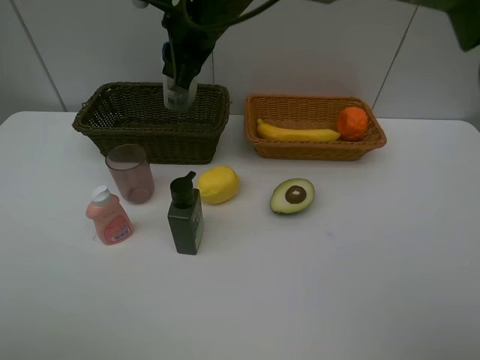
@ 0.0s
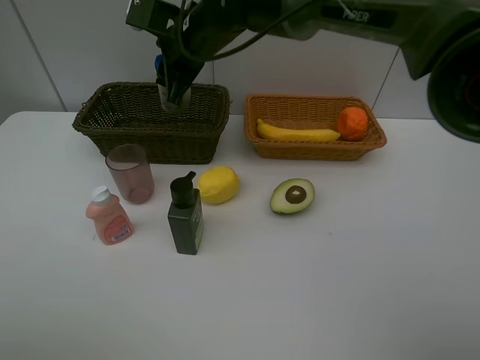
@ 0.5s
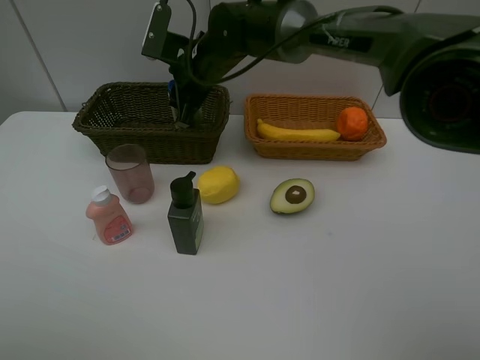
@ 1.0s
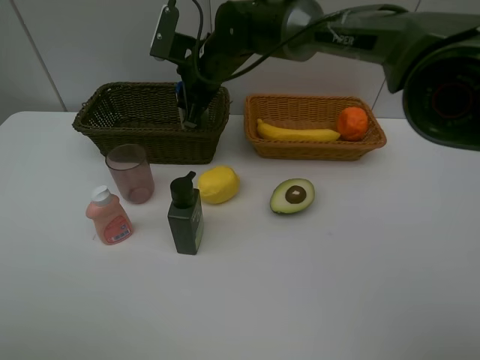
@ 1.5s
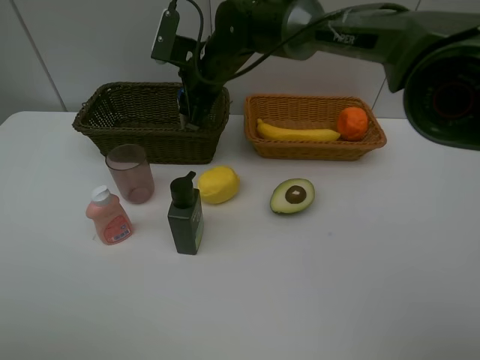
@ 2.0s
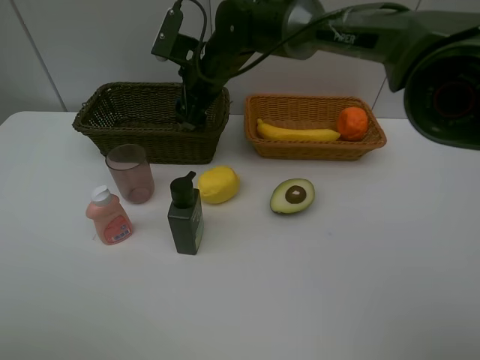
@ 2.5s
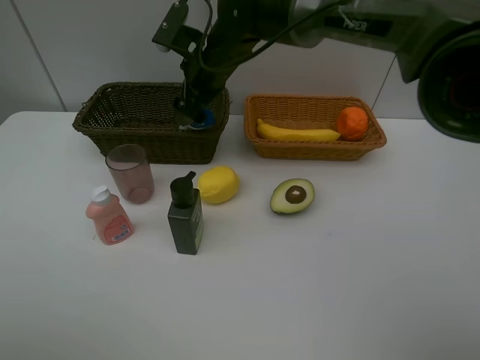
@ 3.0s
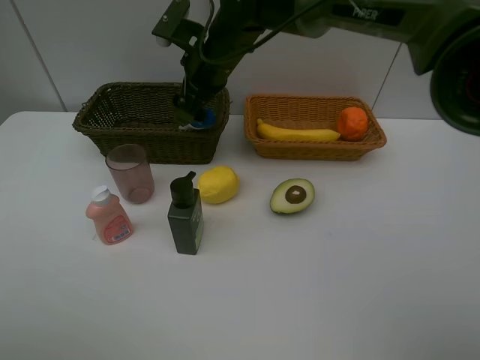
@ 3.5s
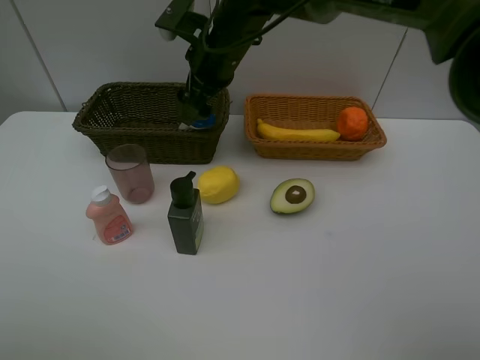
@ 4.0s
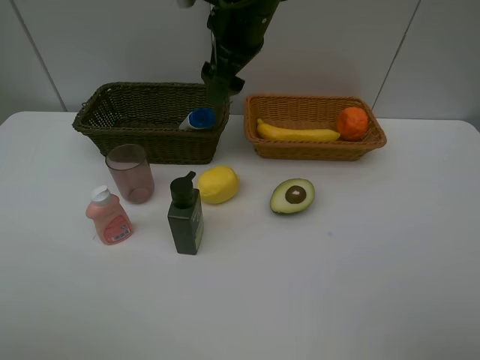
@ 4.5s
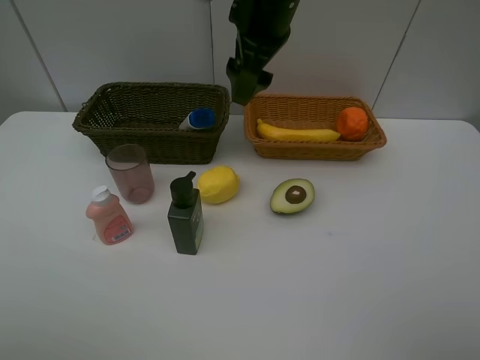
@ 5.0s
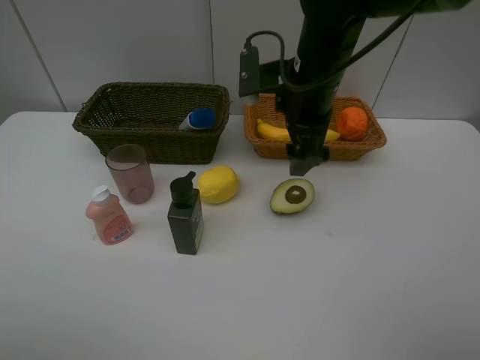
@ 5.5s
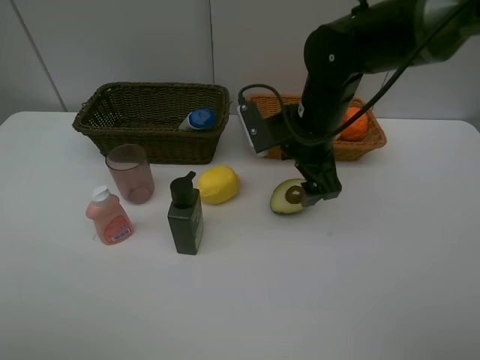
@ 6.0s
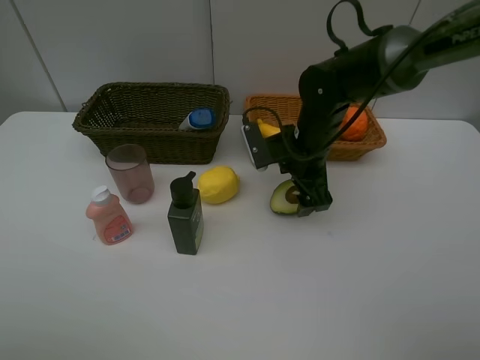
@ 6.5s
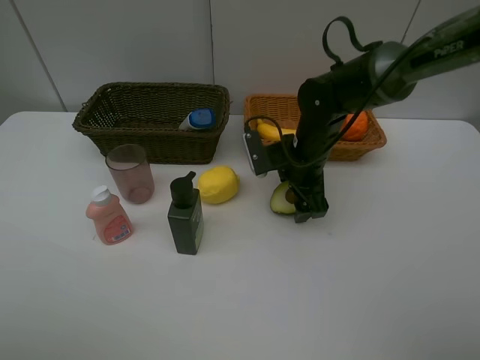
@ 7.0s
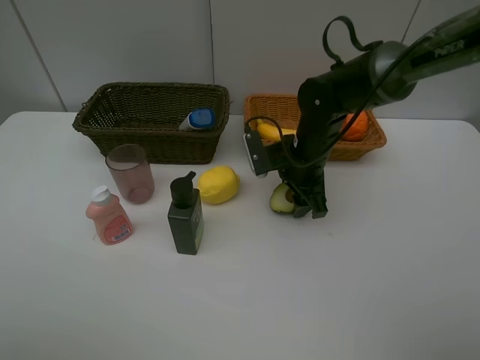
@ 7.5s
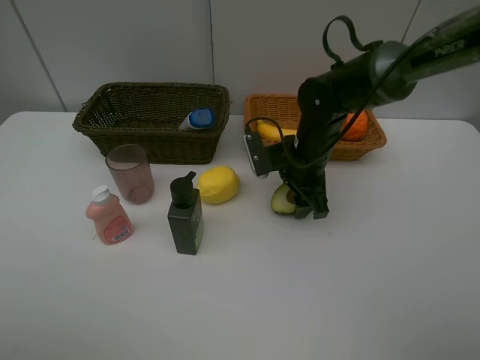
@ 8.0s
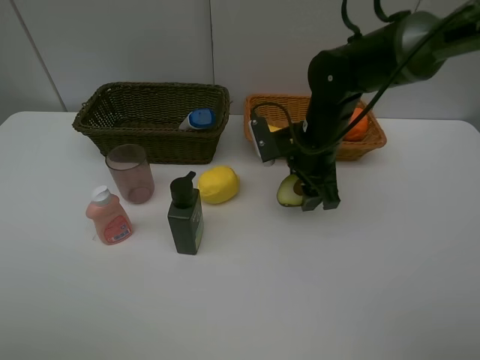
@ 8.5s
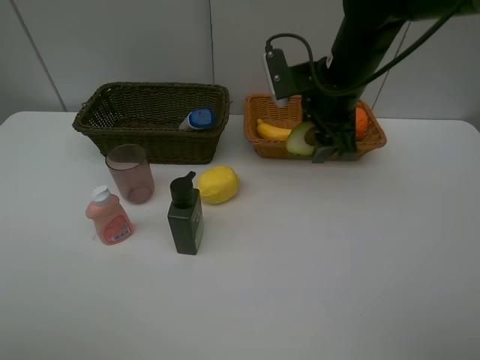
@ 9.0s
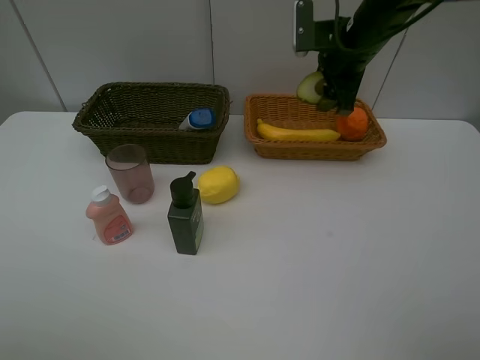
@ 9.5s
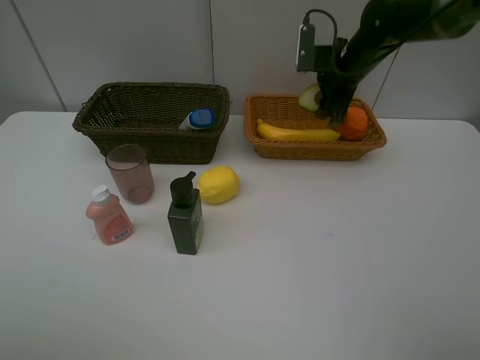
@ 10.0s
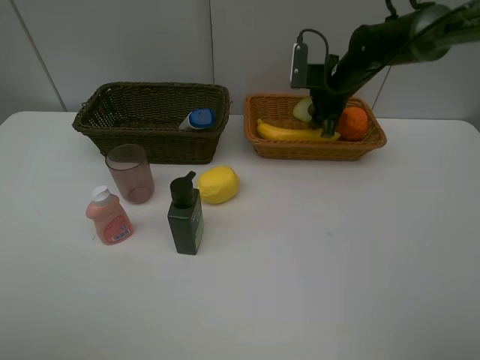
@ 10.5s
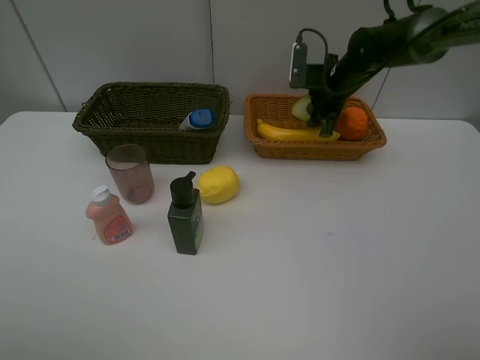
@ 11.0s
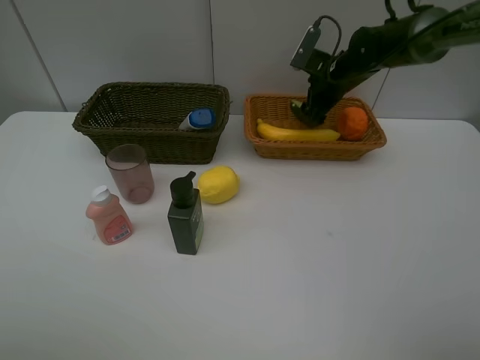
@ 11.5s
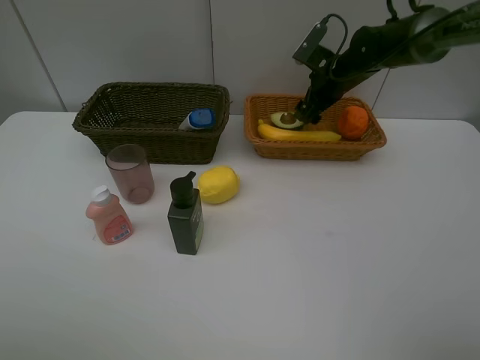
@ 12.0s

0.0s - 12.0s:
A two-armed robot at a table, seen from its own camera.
Task of the whole recording: Place multiple objects separately in different baskets.
Step, 0.0s - 3.0s: Place the shampoo in the dark basket with right gripper.
Step, 3.5s - 8.5s: Pick up the avocado with right gripper.
0.0s - 2.0s: The right gripper goes roughly 10 cm downward.
2.0s - 4.0s: The right gripper shifts by about 5 cm, and opens its fingers.
4.0s - 6.0s: The right gripper moves to the right, backward and downward, some 15 cm.
6.0s - 8.0s: The right gripper is displaced downward by about 5 cm, and closes up.
8.0s - 10.0s: The right gripper moves forward, upward and to the right, about 15 cm.
10.0s - 12.0s: The right gripper opens its fingers.

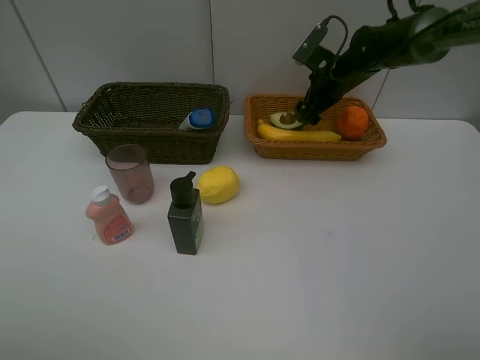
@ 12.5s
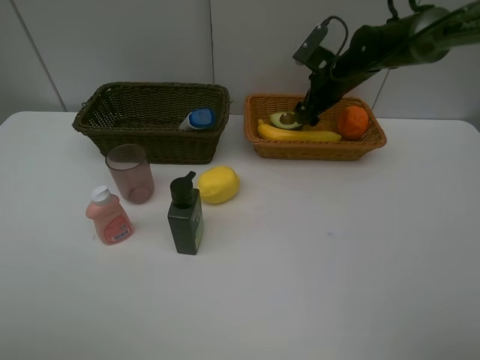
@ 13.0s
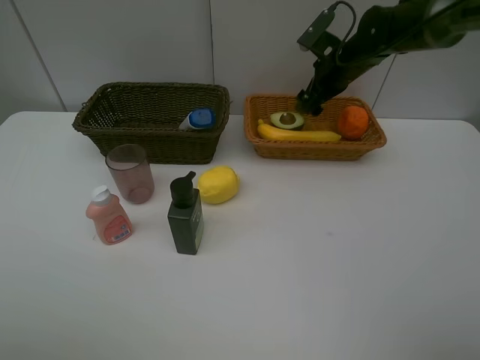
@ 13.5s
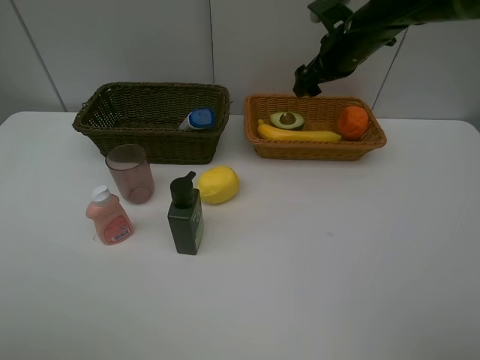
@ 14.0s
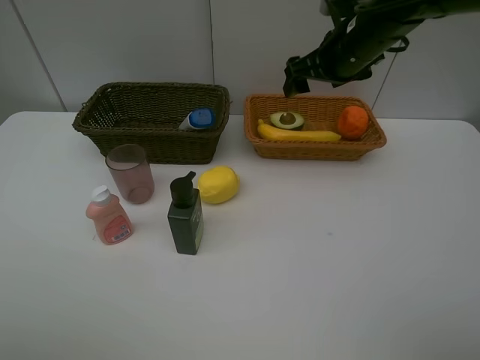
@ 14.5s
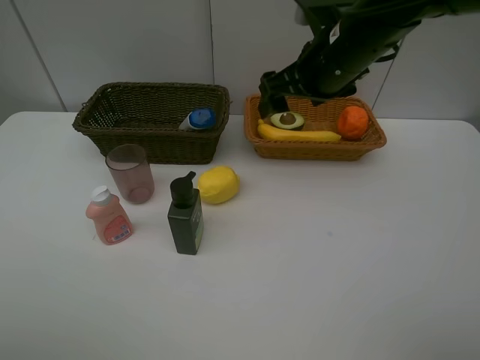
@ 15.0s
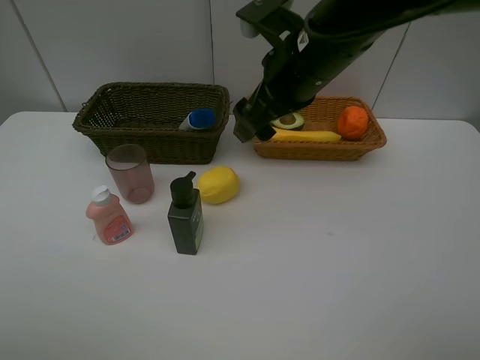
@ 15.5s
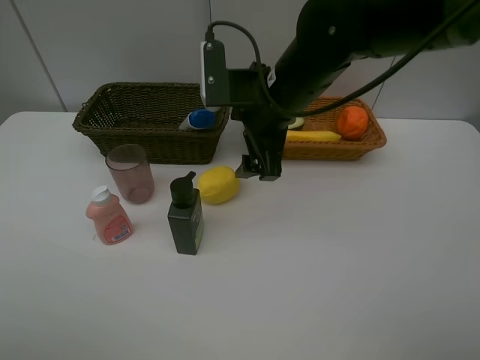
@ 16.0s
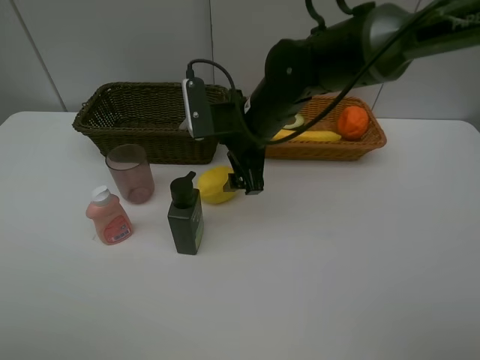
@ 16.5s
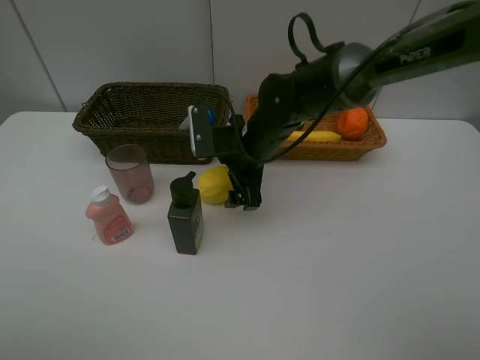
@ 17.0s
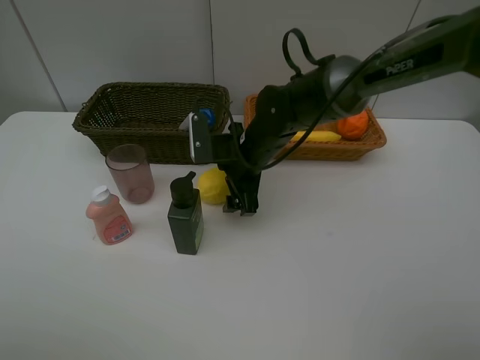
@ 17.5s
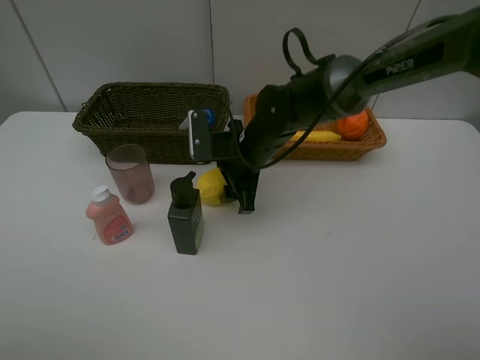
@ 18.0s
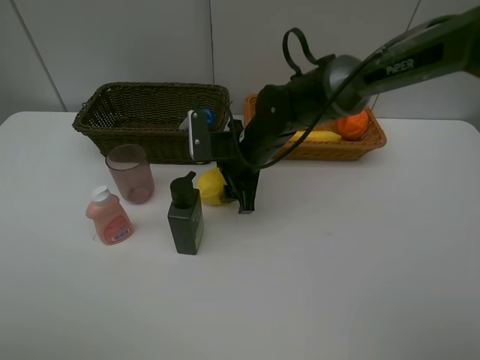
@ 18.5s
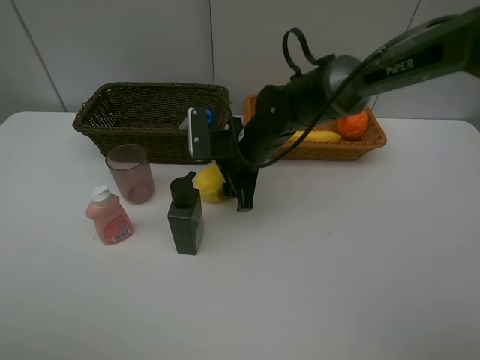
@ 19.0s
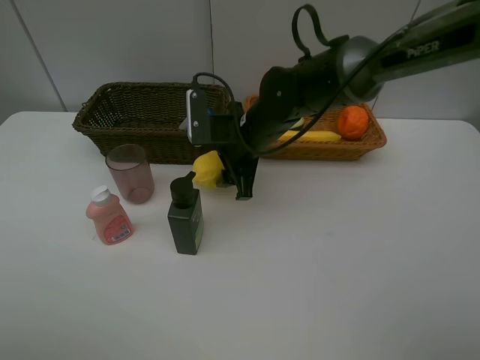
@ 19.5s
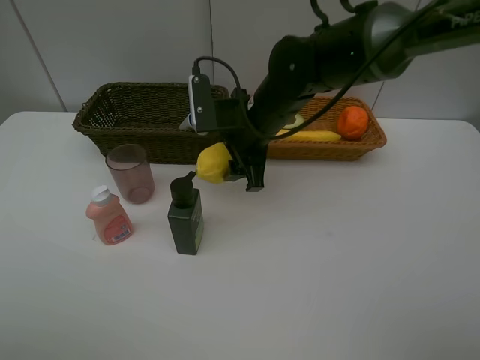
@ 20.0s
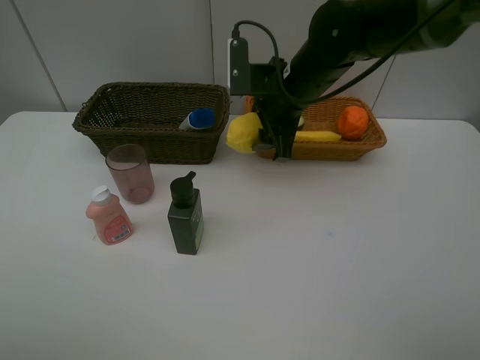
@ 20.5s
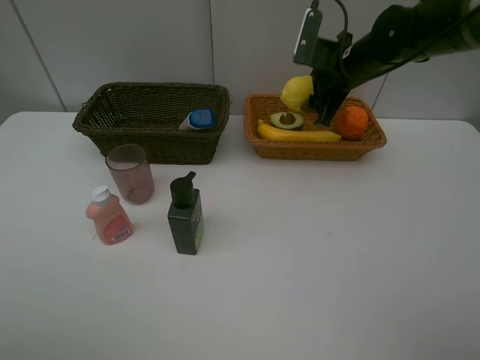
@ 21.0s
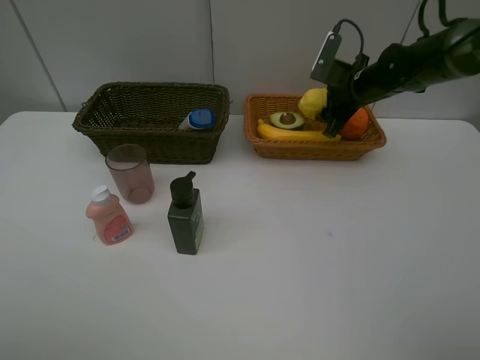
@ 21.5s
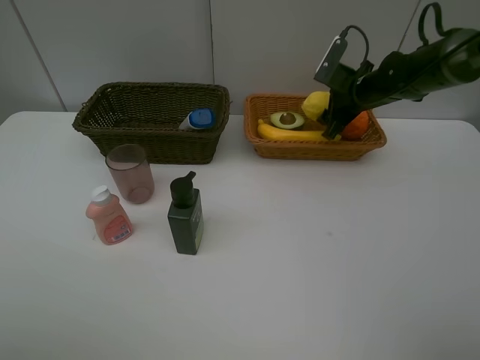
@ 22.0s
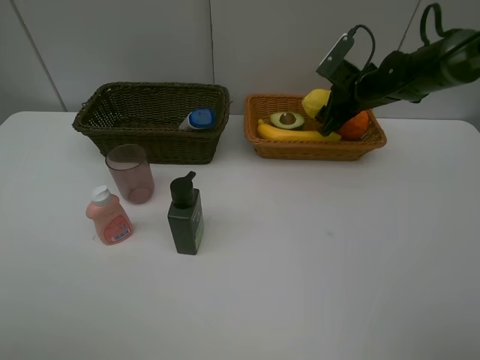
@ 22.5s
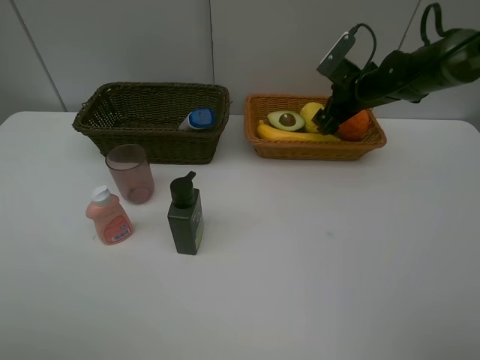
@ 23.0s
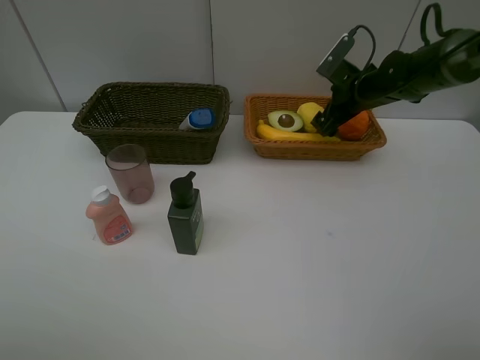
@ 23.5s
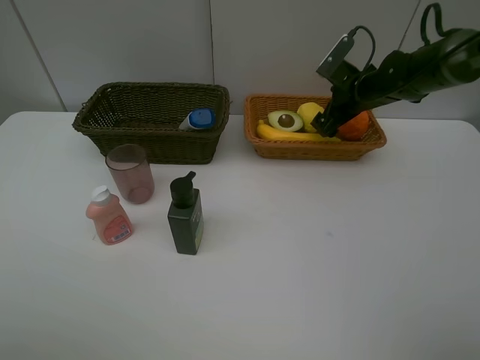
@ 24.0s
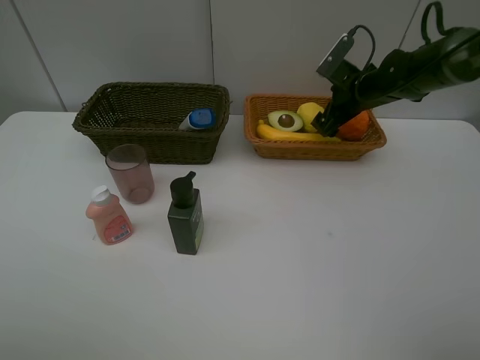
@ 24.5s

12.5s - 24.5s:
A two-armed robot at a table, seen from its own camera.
Task of the whole recording: Place multiple objects separately in different baskets.
Step, 12.5s - 19.5s: Pick up the lemon with right gripper.
12.5s - 14.5s: The right gripper heads backward and upward, covering roughly 15 cm.
14.5s - 16.5s: The right gripper moves to the left, downward and backward, roughly 15 cm.
16.5s - 18.5s: The right gripper shifts about 5 cm downward, and closes its fingers.
18.5s - 20.5s: The right gripper moves upward and to the right, approximately 10 cm.
20.5s - 22.5s: The right gripper travels to the right, forward and downward by roughly 15 cm.
22.5s - 24.5s: The right gripper opens.

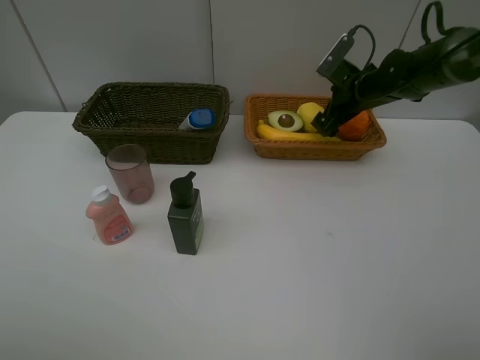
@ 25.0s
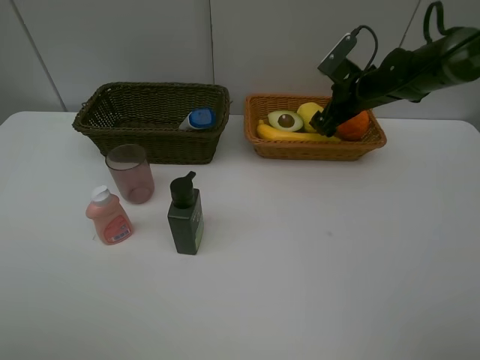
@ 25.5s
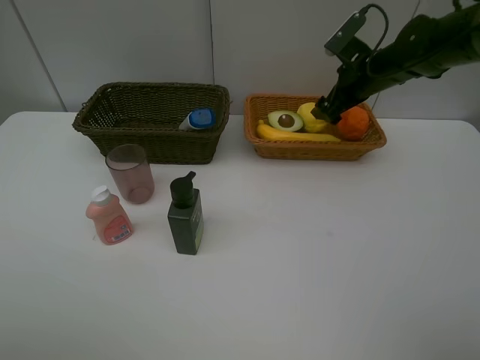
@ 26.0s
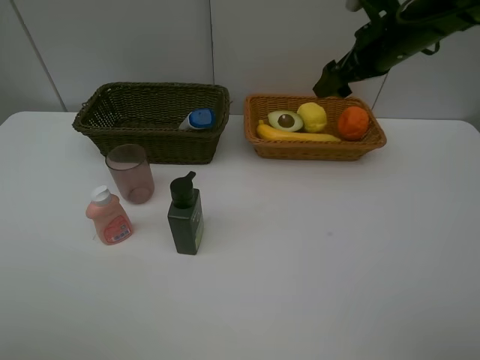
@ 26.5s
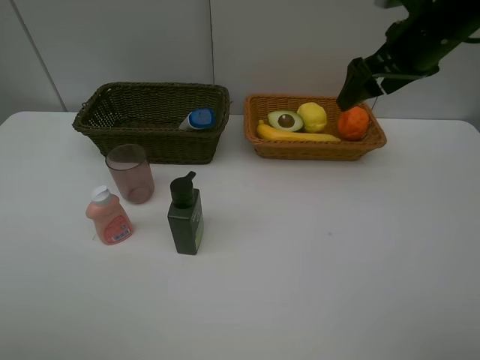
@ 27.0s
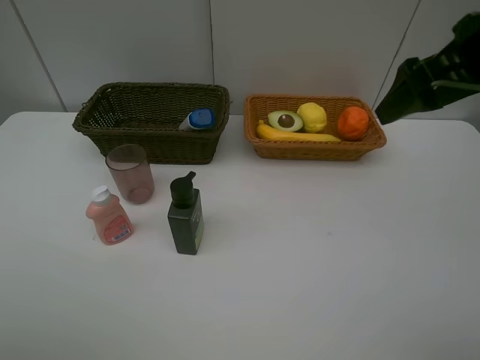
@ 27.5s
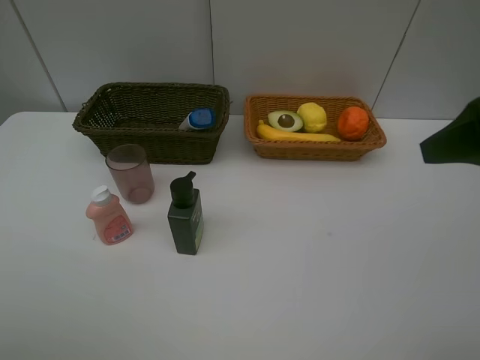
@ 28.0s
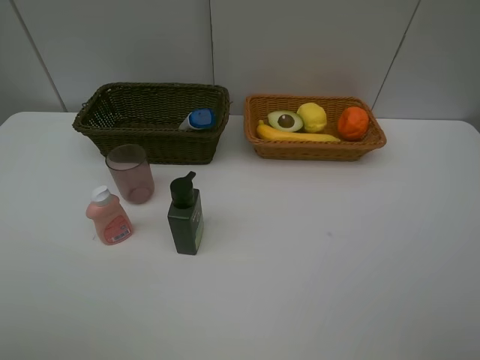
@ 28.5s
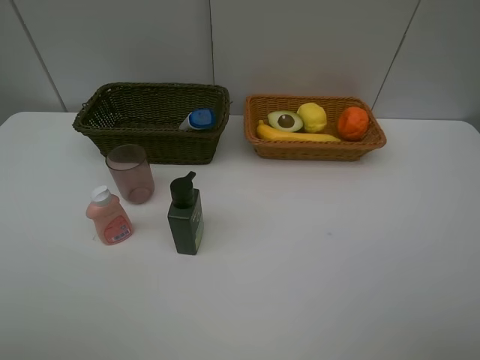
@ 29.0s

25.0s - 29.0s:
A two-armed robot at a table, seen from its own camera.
Task of the whole recording: Place multiple objects separately in different baskets.
25.0s - 27.0s: The right gripper travels upward and backward by some 20 cm.
27.0s - 29.0s: The right gripper is displaced backward by approximately 35 cm.
